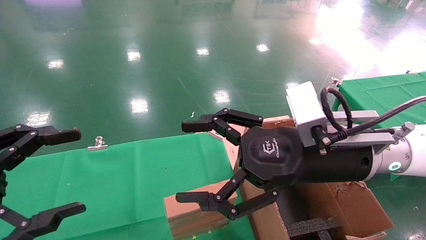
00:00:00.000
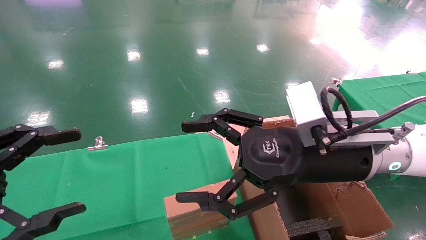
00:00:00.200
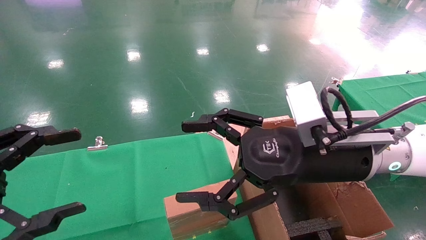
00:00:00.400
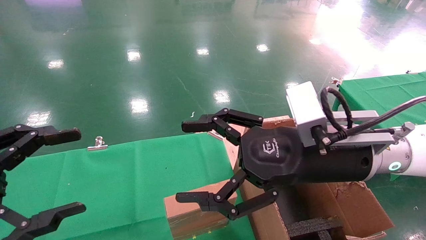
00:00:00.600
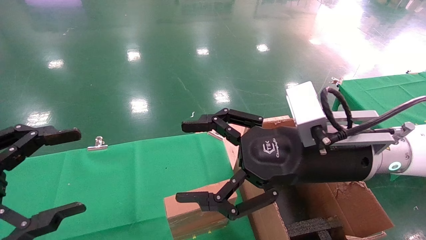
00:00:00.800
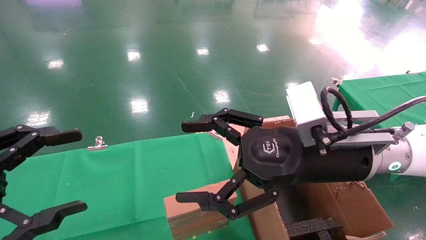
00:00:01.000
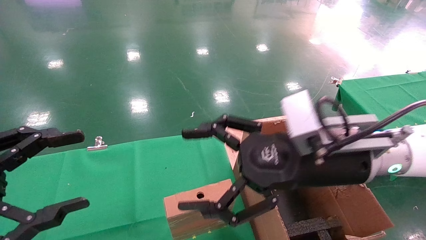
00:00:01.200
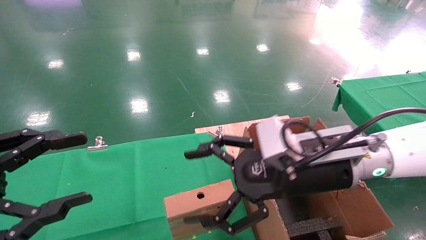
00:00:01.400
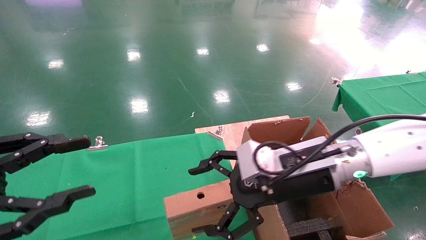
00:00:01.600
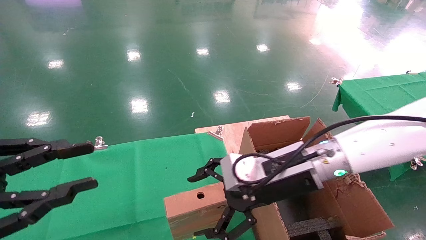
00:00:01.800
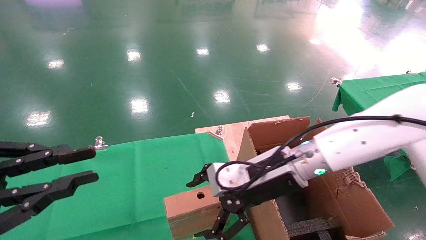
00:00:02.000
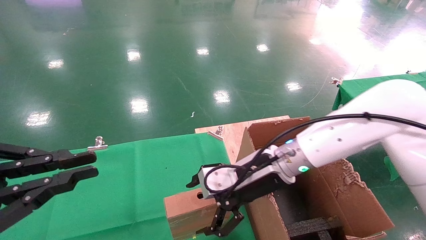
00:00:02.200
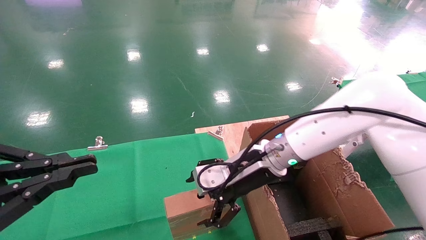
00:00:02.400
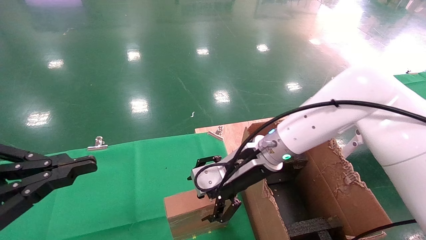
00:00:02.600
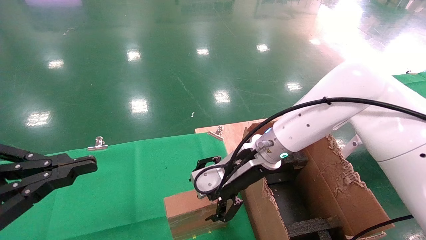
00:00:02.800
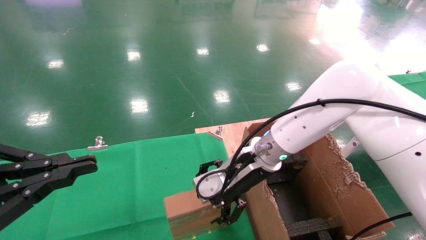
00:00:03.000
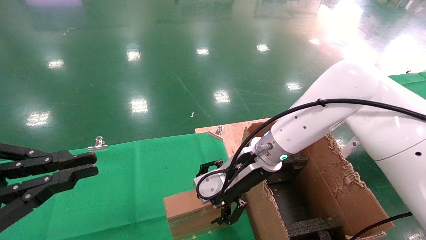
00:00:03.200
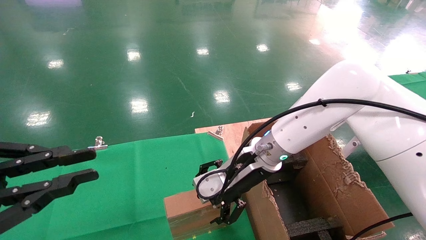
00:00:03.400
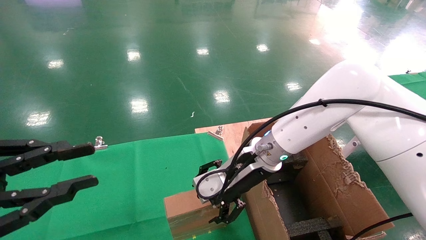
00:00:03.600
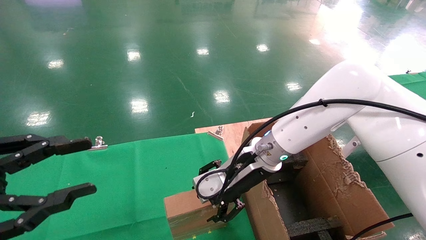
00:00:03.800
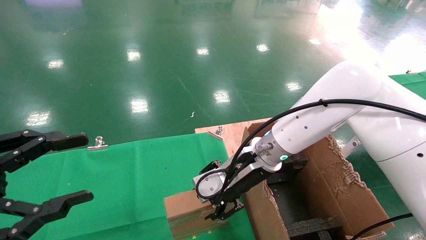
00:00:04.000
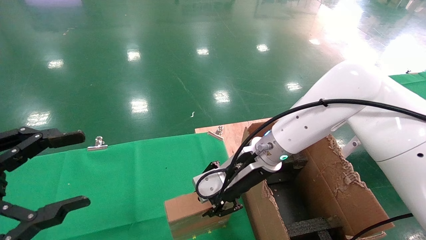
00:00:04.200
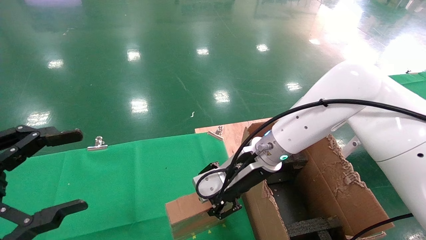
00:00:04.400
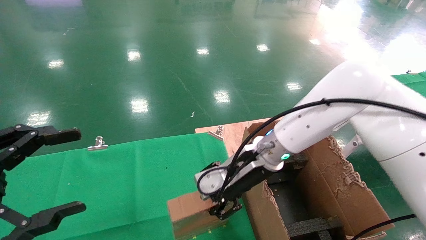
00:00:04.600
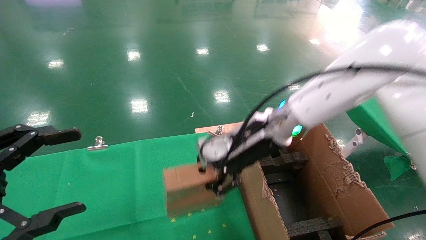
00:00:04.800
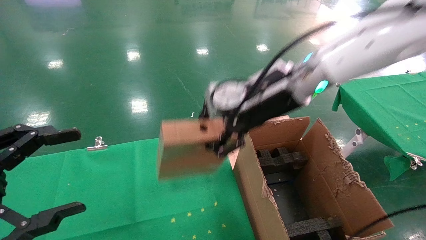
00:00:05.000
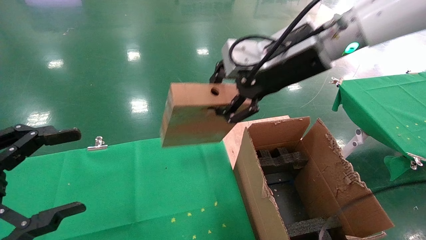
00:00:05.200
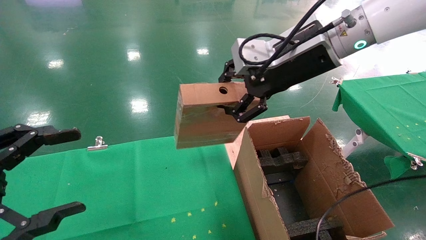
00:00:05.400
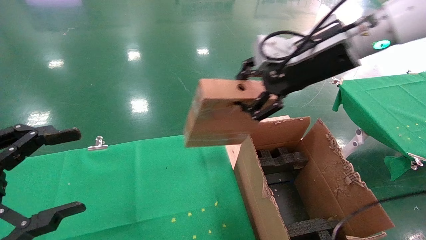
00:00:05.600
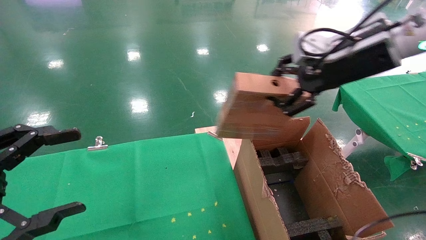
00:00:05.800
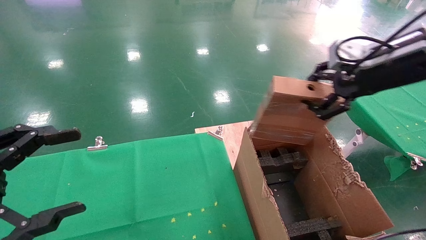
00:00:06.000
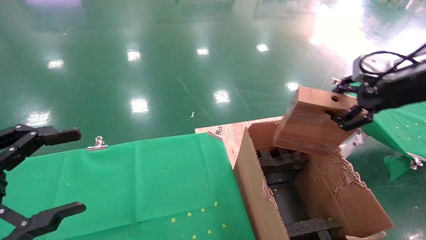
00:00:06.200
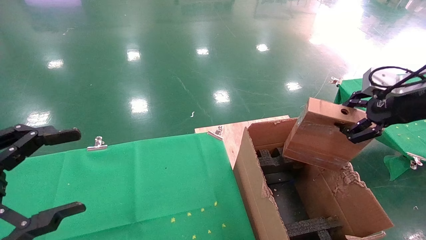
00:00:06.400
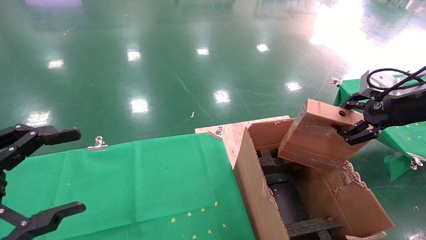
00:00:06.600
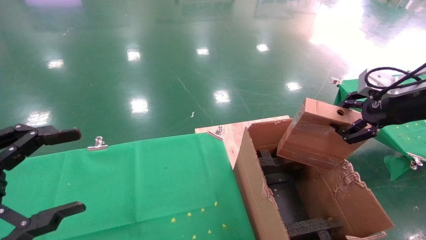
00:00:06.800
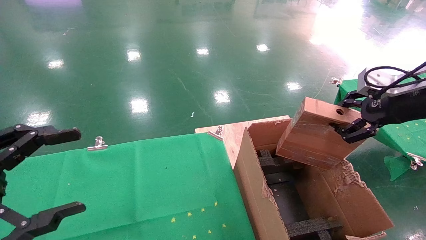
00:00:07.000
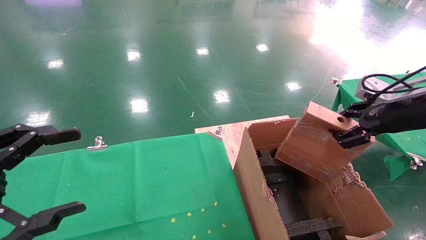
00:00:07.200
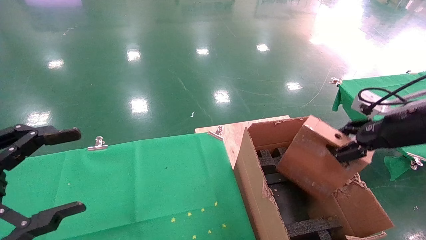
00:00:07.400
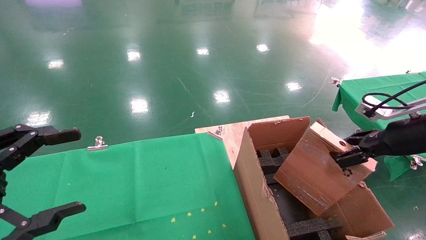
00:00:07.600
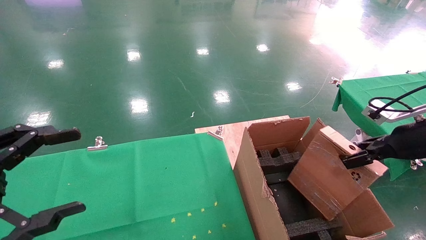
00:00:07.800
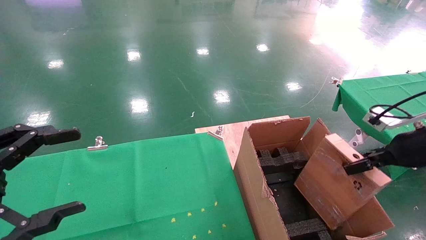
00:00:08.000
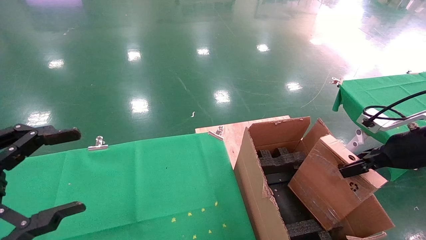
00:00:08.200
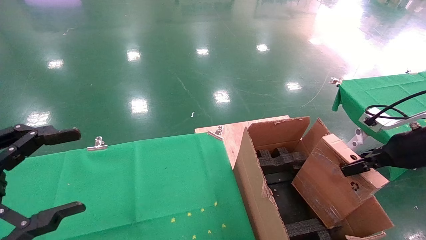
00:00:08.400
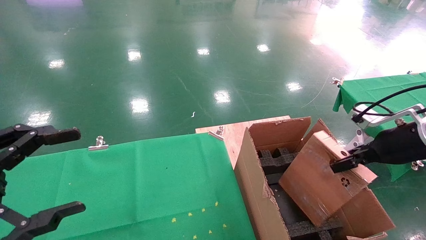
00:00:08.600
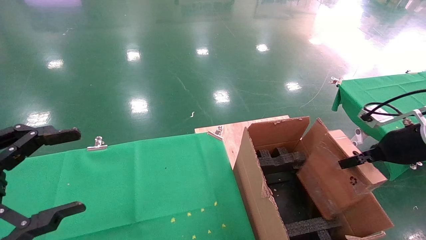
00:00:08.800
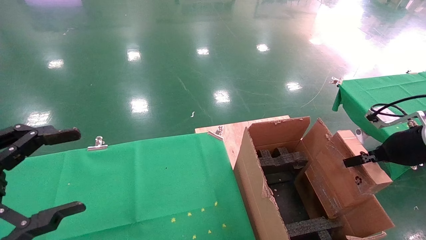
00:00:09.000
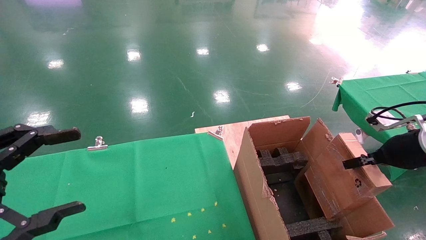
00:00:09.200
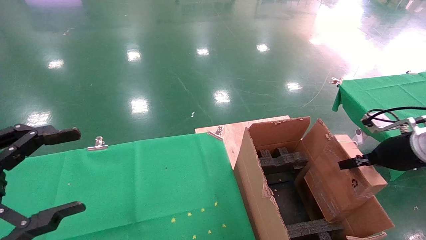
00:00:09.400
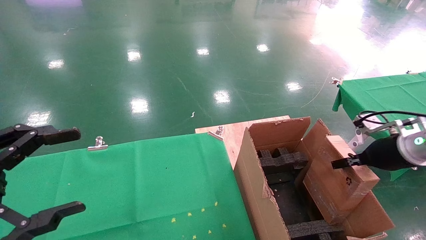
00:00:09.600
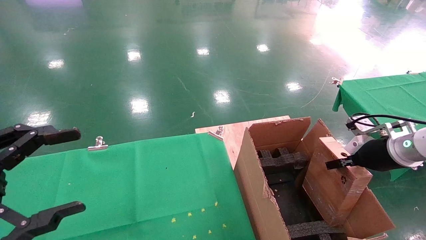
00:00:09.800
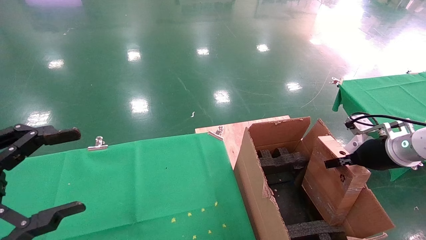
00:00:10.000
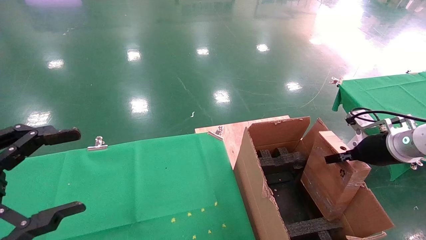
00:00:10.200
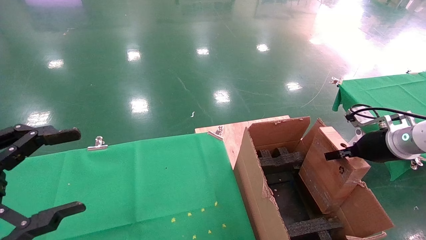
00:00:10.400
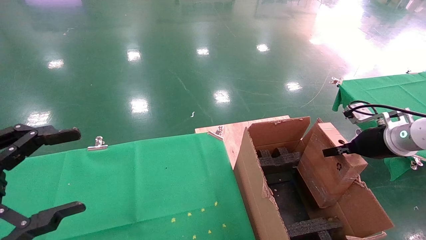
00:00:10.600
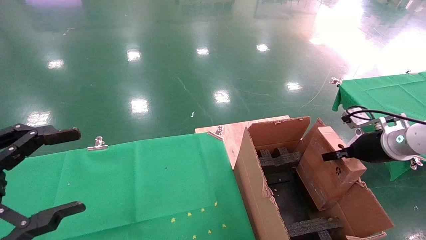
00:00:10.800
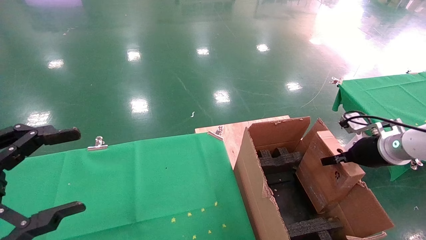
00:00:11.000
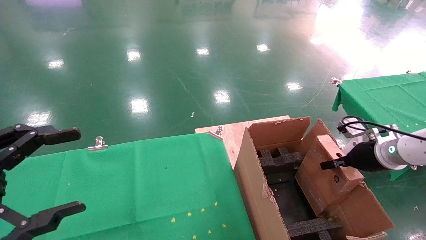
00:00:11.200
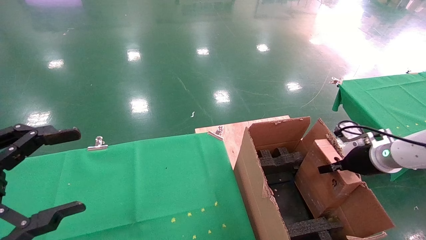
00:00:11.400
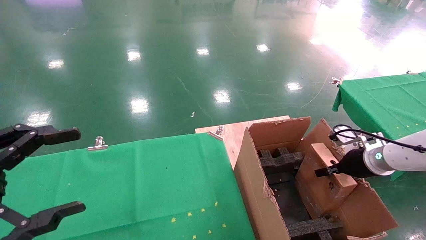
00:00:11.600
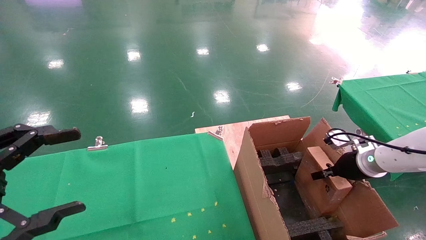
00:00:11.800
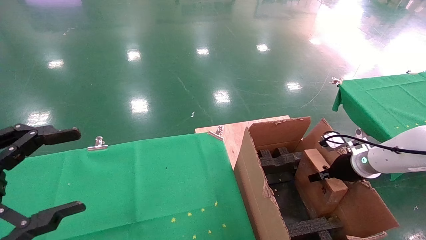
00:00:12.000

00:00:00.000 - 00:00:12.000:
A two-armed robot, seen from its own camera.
Task of the whole recording: using a robotic arm to pick up a cardboard box and palace it the carton.
Step, 00:00:01.400 - 00:00:04.200: Pick up the mouse and the power cord paper box.
00:00:00.000 - 00:00:01.600: The right gripper changes place by about 5 cm.
00:00:01.600 - 00:00:03.000: The right gripper goes some 10 cm forward and to the left; the left gripper closes its fingers.
00:00:03.000 - 00:00:04.400: The left gripper opens its fingers. Meanwhile the right gripper closes its fingers.
00:00:04.400 - 00:00:06.000: The right gripper heads to the right and upward, covering roughly 30 cm.
00:00:06.000 - 00:00:07.600: The right gripper is displaced downward and to the right by some 15 cm.
00:00:09.000 - 00:00:10.400: The right gripper ends up approximately 5 cm from where it was.
00:00:10.400 - 00:00:12.000: The right gripper is displaced downward by approximately 10 cm.

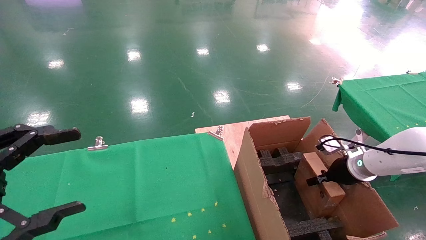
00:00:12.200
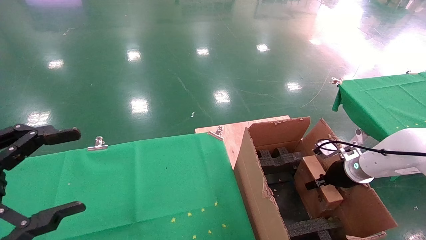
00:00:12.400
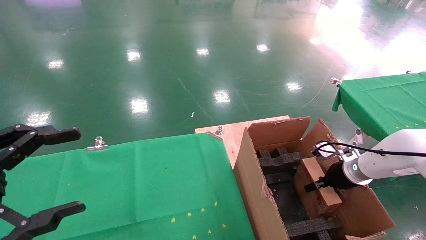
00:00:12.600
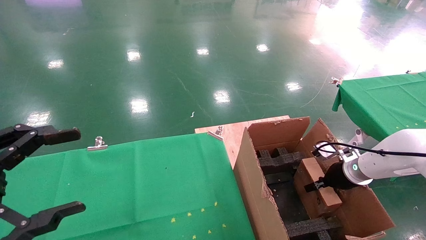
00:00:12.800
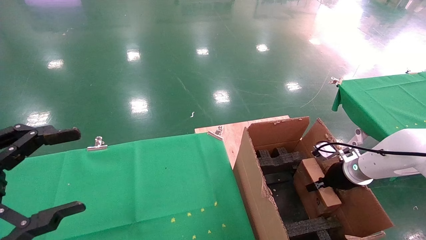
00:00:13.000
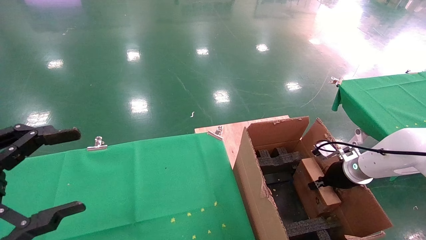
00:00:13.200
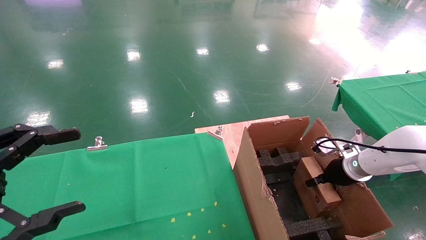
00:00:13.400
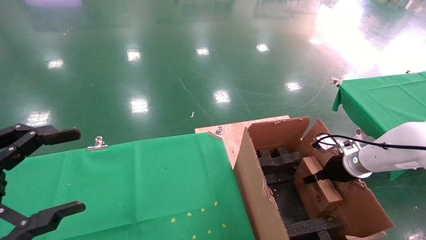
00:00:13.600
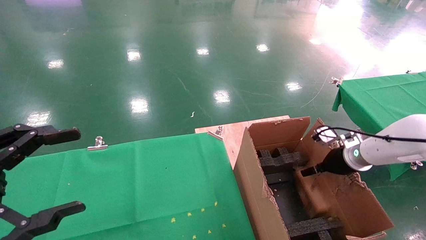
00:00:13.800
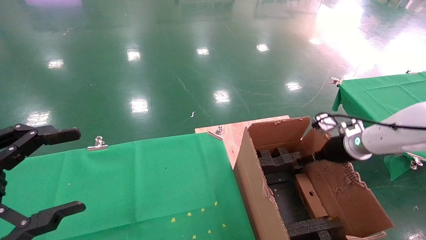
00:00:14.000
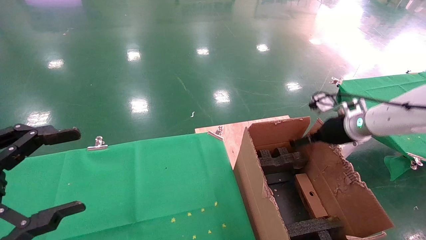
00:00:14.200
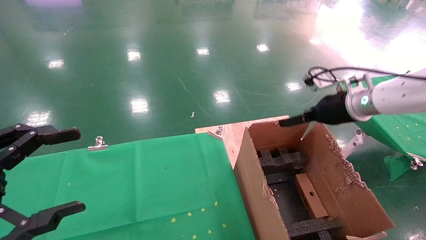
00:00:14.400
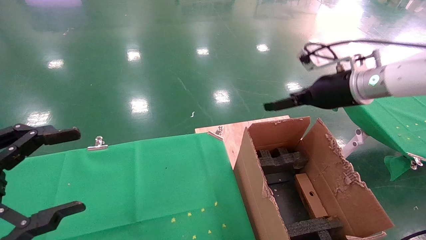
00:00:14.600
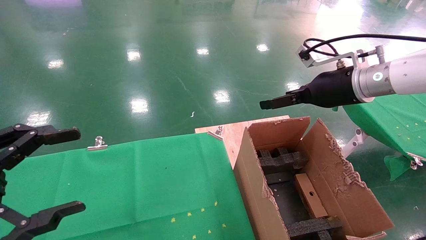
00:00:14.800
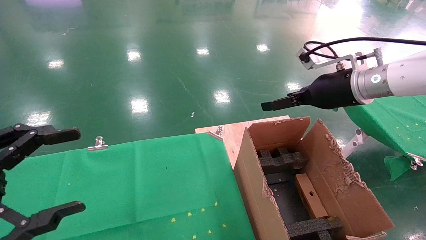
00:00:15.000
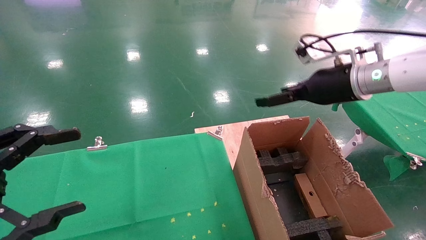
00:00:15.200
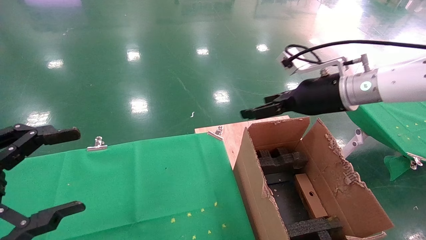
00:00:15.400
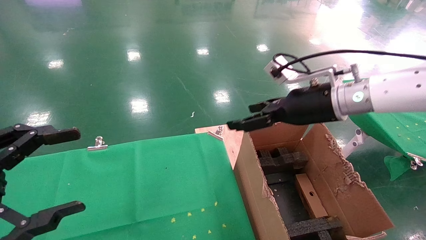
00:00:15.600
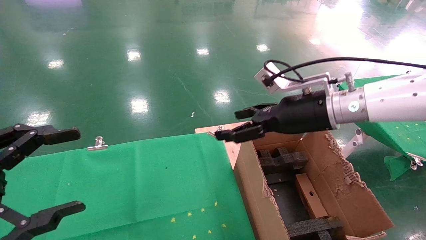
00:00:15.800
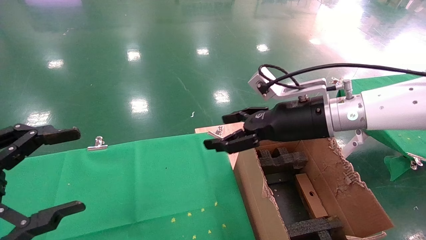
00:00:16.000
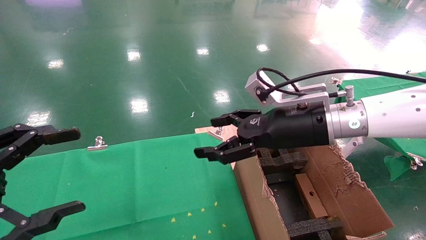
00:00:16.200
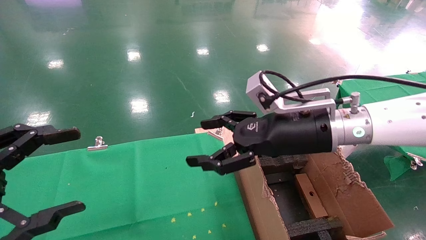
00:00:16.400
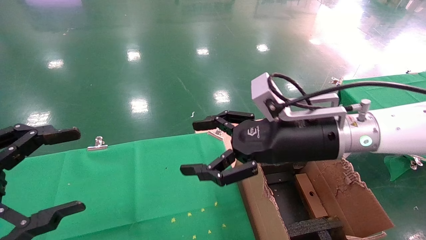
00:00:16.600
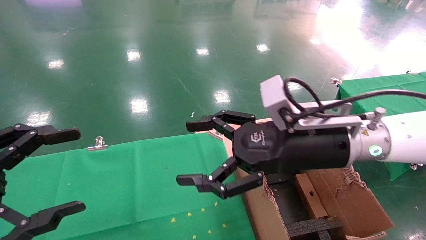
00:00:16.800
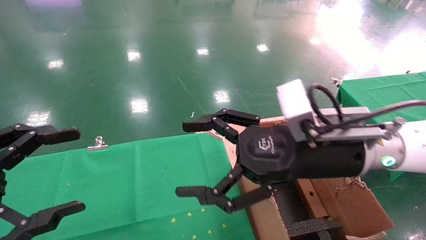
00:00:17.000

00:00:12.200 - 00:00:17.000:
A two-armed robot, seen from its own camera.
Task of the whole recording: using a robotic arm to pick up a cardboard box and palace it the carton.
Step, 00:00:12.200 - 00:00:14.200: Place the mouse and the power cord paper box into the container.
00:00:12.200 - 00:00:13.800: The right gripper opens up.
00:00:13.800 - 00:00:15.400: The right gripper shifts roughly 20 cm upward and to the left.
00:00:15.400 - 00:00:17.000: The right gripper goes about 15 cm backward and to the left.
